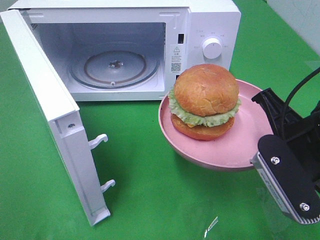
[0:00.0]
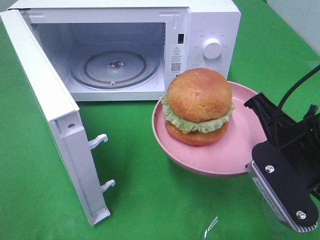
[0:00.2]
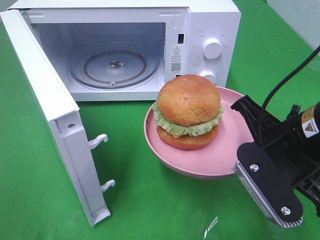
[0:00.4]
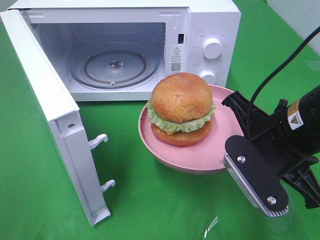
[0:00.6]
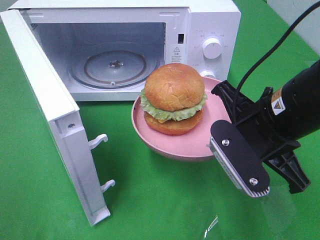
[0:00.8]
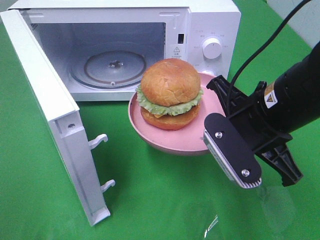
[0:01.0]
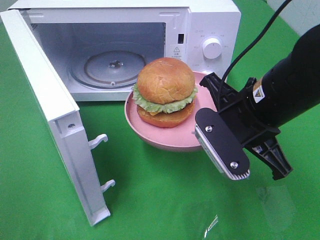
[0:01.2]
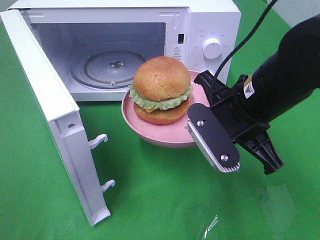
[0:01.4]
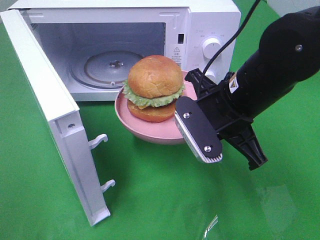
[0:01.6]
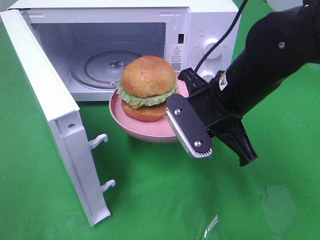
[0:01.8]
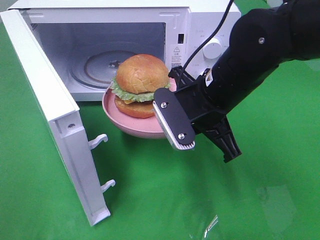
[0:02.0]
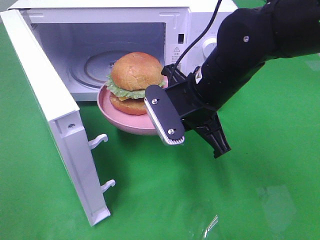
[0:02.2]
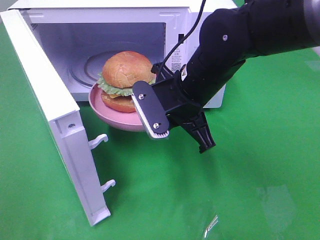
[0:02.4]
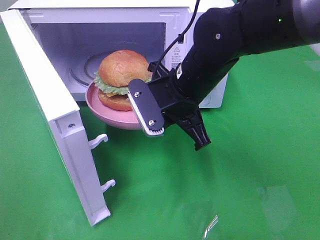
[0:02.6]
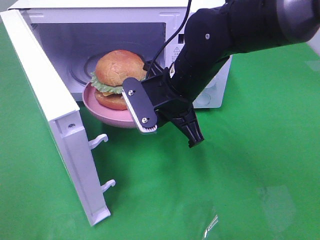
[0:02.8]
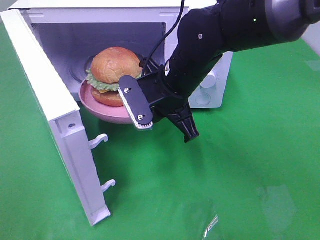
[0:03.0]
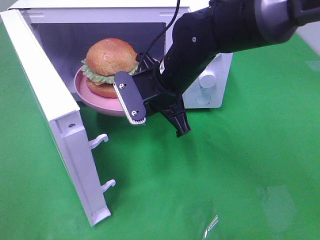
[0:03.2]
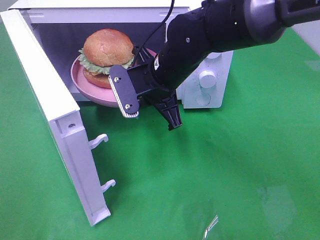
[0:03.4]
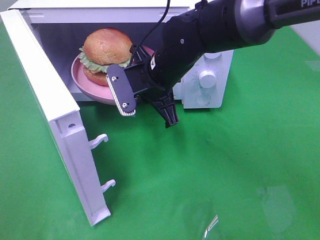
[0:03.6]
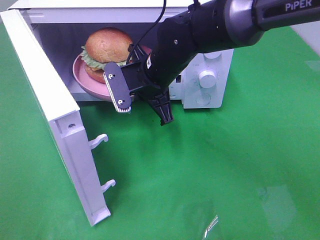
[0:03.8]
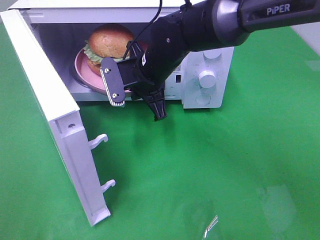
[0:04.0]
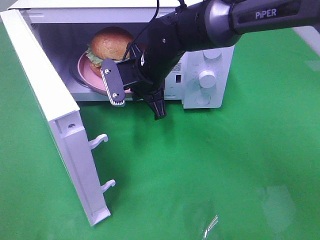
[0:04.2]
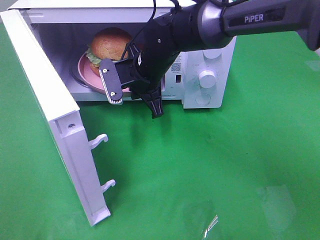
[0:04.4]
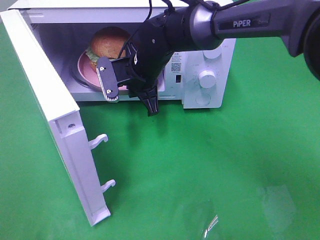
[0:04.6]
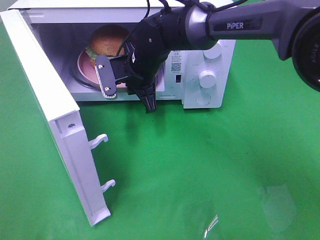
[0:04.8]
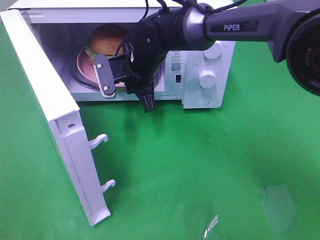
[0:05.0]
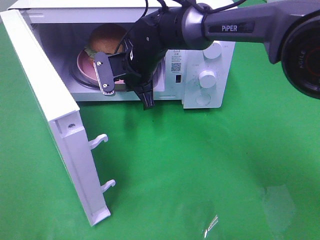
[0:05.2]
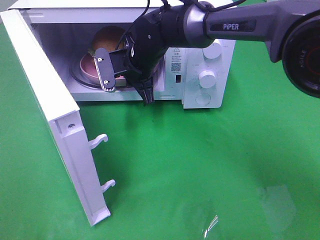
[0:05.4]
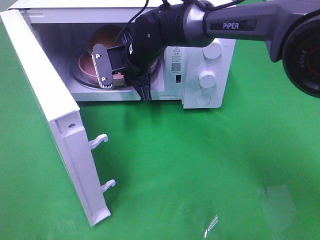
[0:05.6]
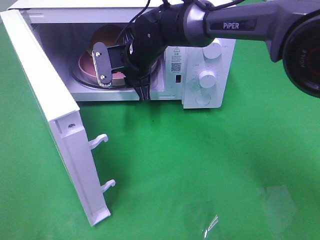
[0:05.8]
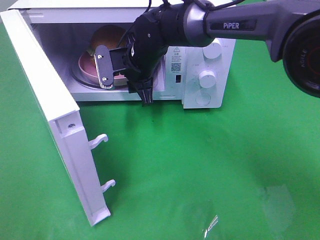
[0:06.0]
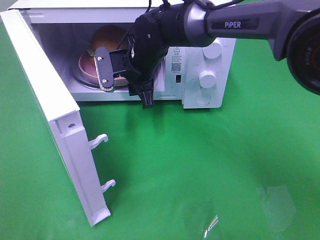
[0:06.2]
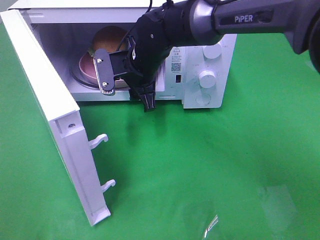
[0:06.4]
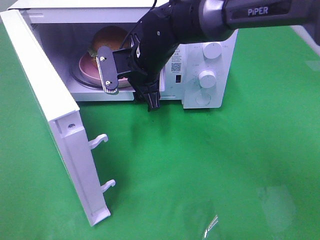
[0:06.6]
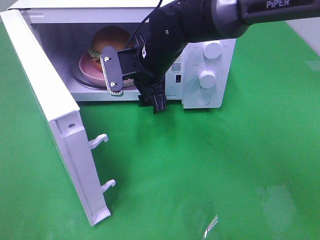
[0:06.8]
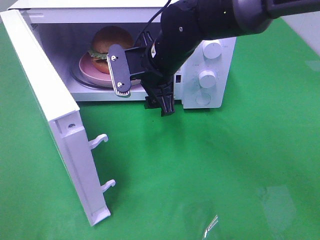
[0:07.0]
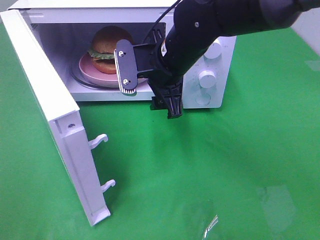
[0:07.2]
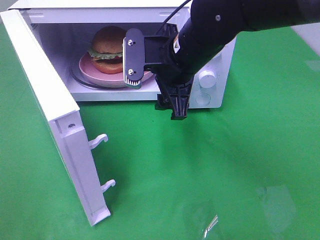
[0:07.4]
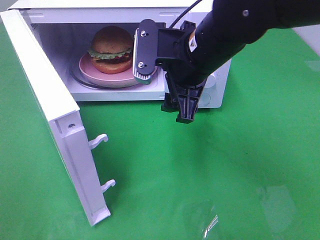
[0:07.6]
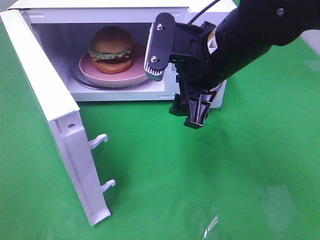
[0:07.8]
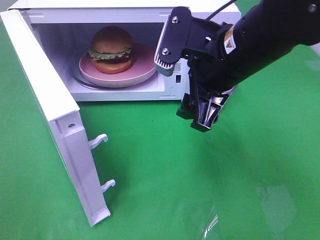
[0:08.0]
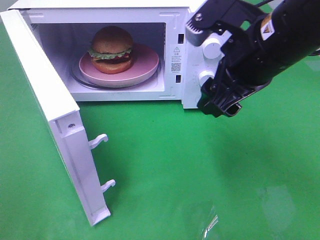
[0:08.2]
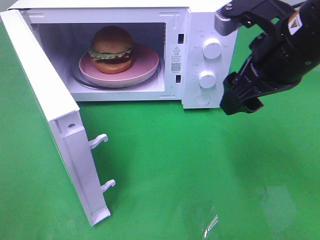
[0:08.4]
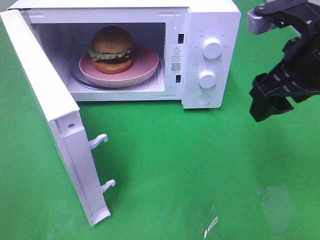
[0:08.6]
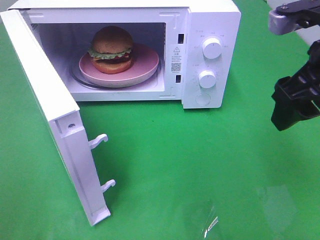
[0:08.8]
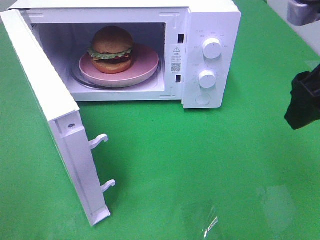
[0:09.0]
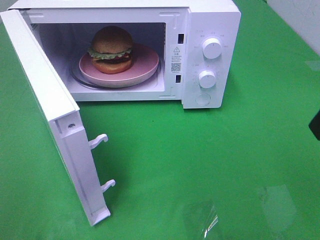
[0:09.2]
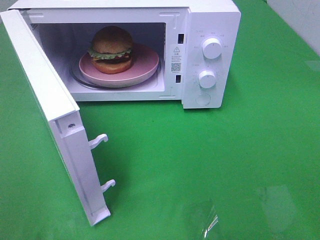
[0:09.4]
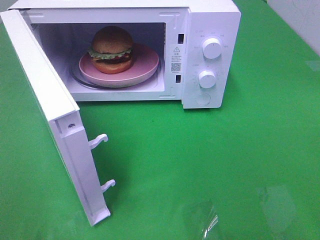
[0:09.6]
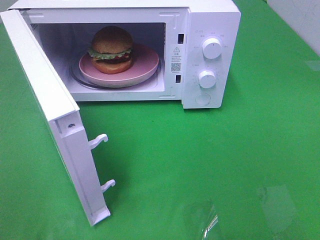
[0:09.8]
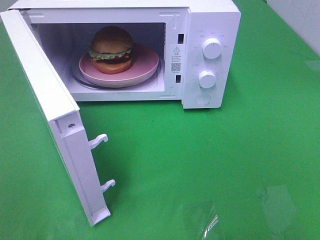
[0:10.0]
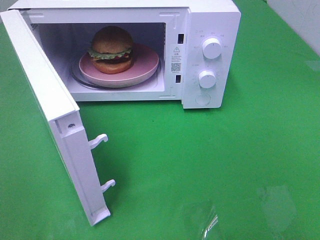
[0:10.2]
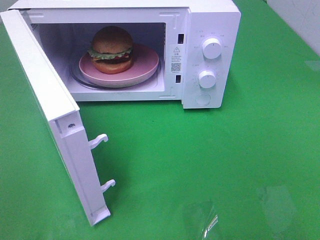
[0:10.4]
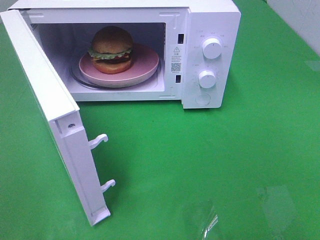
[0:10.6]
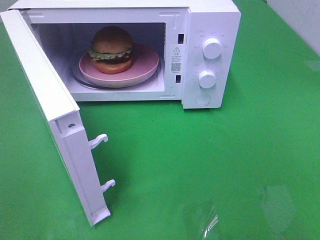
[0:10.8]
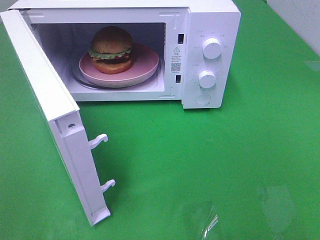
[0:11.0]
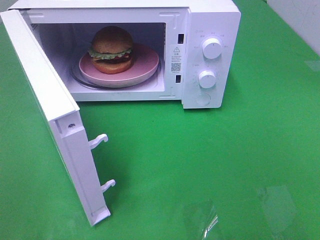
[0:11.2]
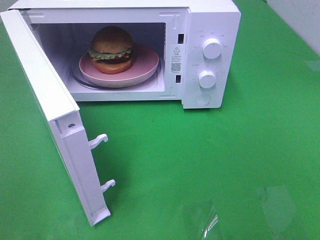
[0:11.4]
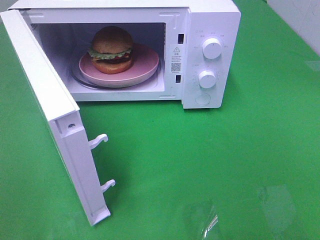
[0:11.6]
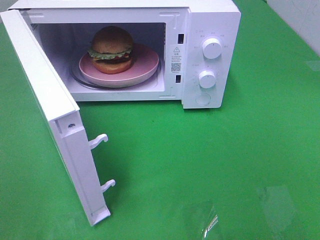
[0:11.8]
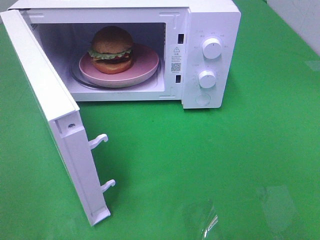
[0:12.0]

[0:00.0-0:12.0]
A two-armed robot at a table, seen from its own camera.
Task of the whole recording: Heat the burger.
Step, 0:00.0 to 0:05.8: Right hand: place the plate in the microwave.
0:00.0 to 0:01.6: The right gripper shifts roughly 10 cm to the left and forward.
0:01.6 to 0:03.0: The right gripper shifts some 10 cm to the left and forward.
0:03.0 to 0:04.4: The right gripper is displaced forward by approximately 10 cm.
0:04.4 to 0:06.0: The right gripper opens up.
0:06.0 to 0:07.6: The right gripper heads backward, to the right and upward, covering some 20 cm, and opens up.
0:07.6 to 0:09.0: The right gripper goes approximately 20 cm to the right, backward and upward.
0:09.0 to 0:10.4: The right gripper travels backward and to the right by about 20 cm.

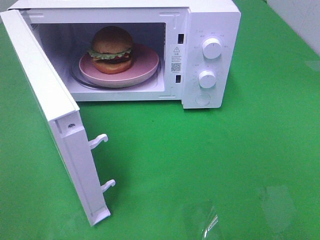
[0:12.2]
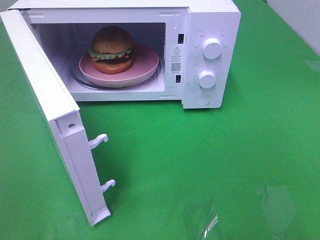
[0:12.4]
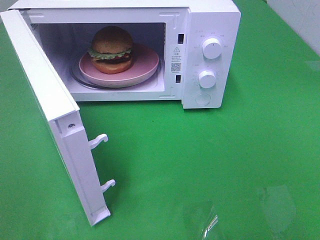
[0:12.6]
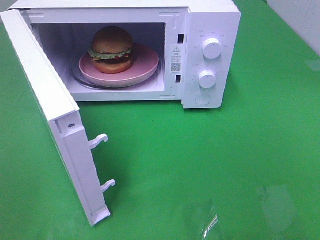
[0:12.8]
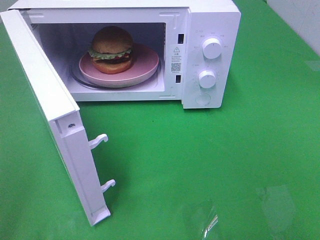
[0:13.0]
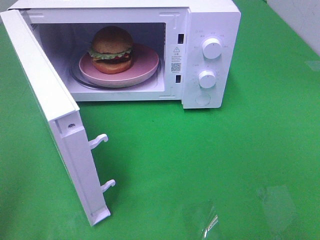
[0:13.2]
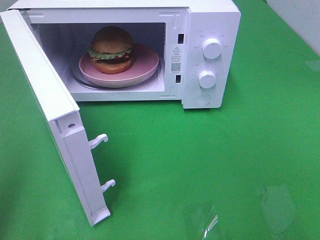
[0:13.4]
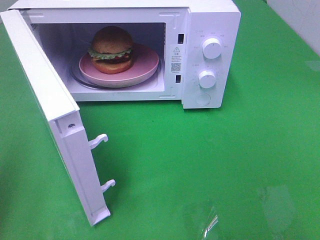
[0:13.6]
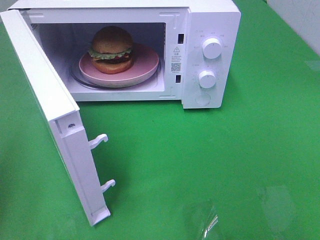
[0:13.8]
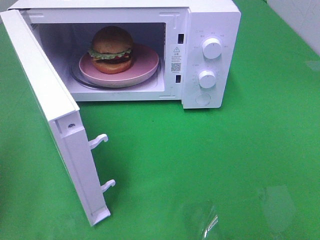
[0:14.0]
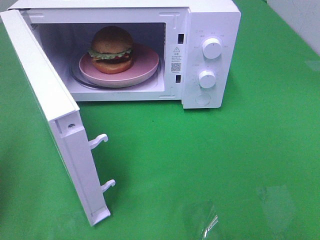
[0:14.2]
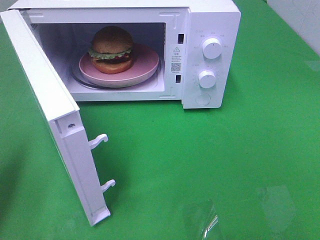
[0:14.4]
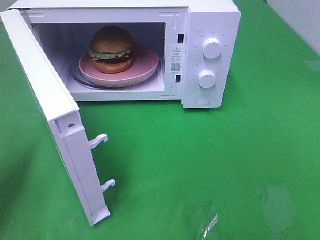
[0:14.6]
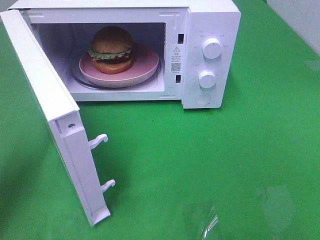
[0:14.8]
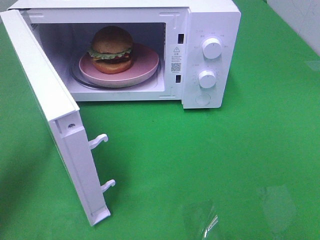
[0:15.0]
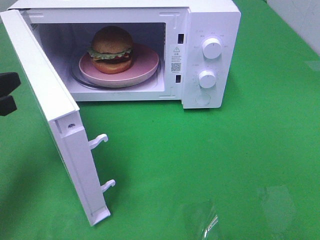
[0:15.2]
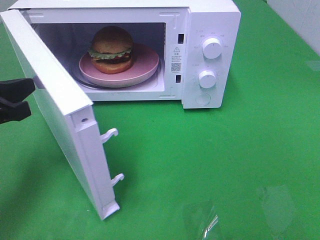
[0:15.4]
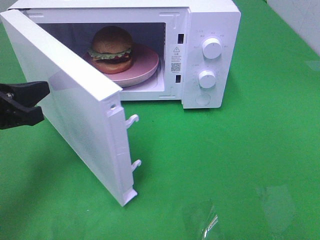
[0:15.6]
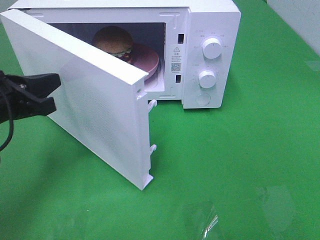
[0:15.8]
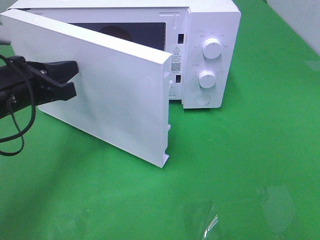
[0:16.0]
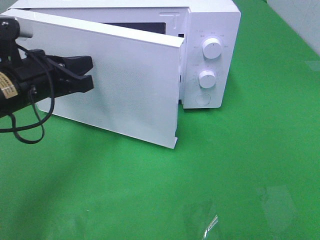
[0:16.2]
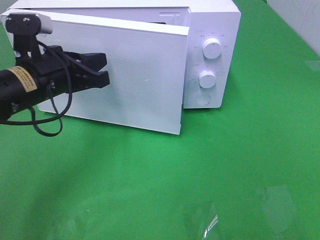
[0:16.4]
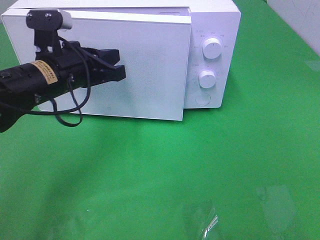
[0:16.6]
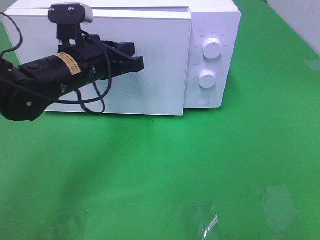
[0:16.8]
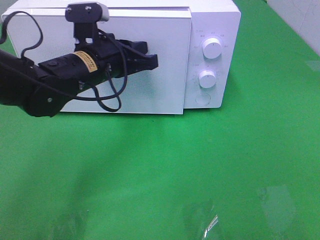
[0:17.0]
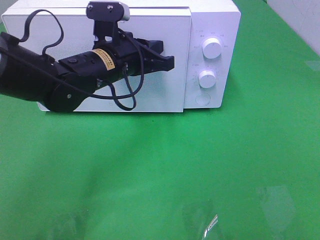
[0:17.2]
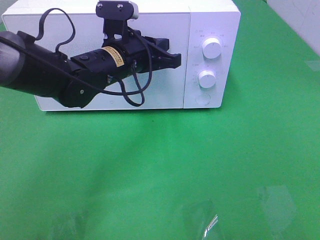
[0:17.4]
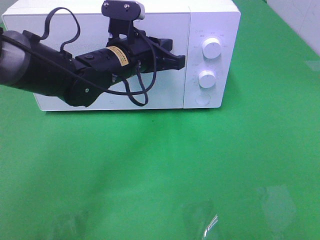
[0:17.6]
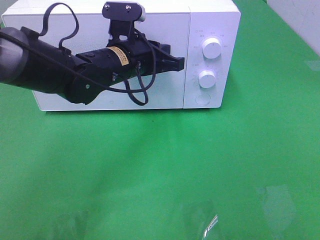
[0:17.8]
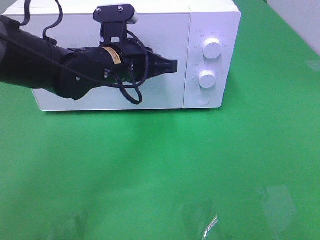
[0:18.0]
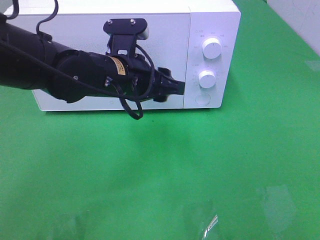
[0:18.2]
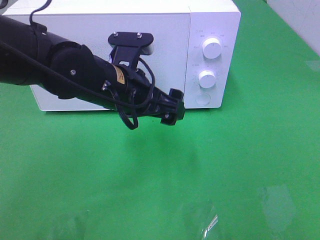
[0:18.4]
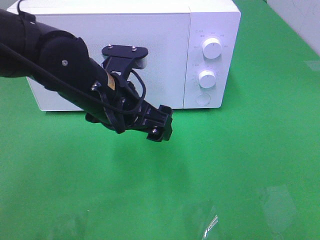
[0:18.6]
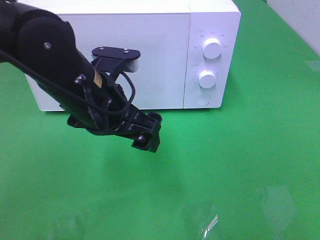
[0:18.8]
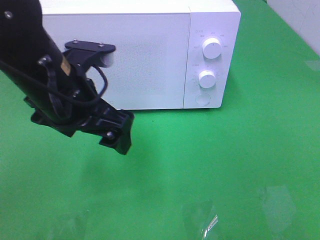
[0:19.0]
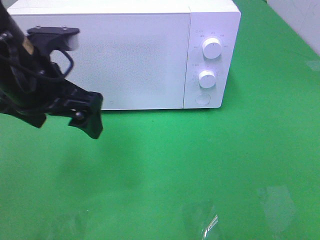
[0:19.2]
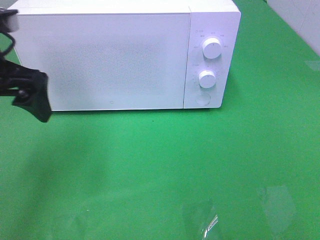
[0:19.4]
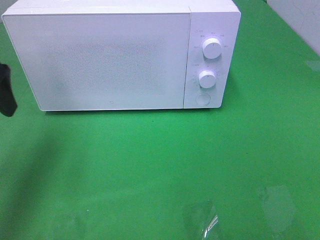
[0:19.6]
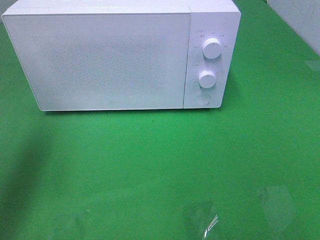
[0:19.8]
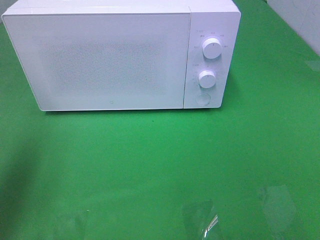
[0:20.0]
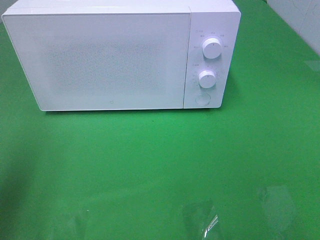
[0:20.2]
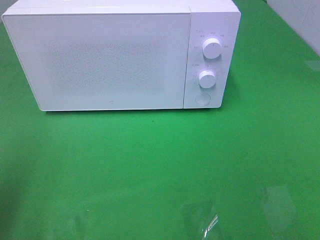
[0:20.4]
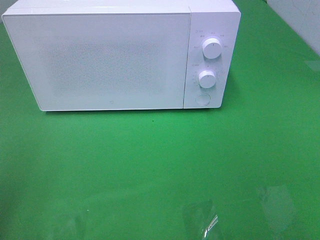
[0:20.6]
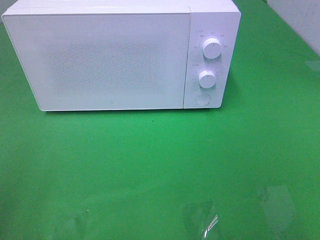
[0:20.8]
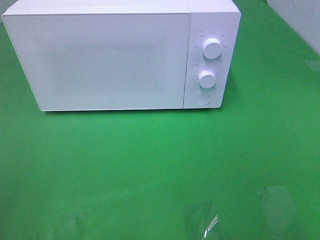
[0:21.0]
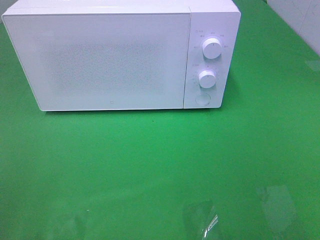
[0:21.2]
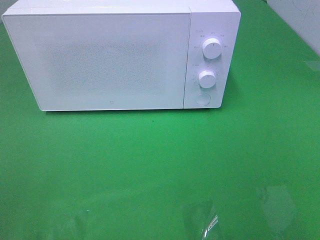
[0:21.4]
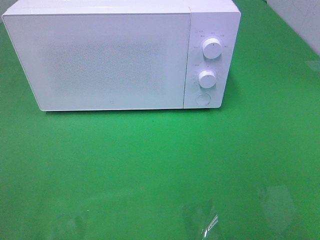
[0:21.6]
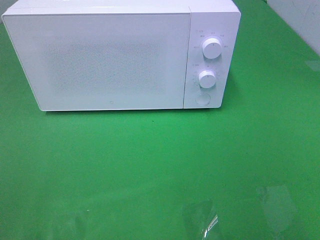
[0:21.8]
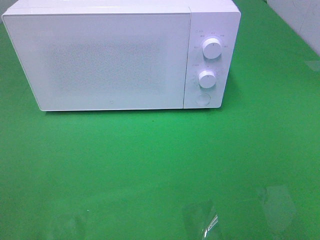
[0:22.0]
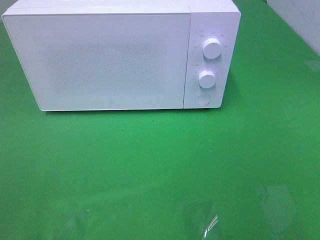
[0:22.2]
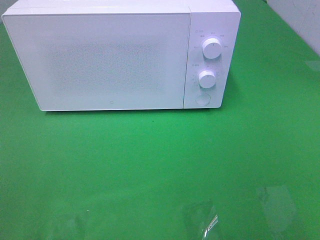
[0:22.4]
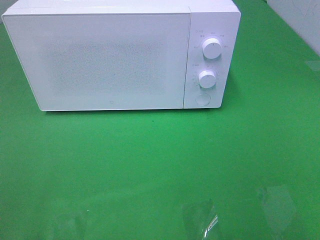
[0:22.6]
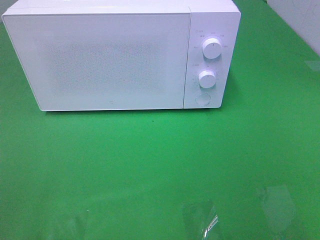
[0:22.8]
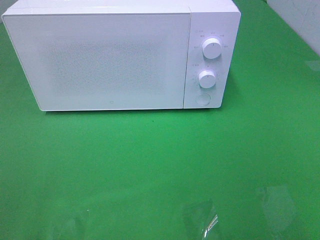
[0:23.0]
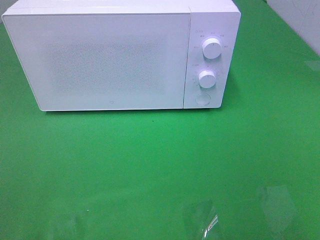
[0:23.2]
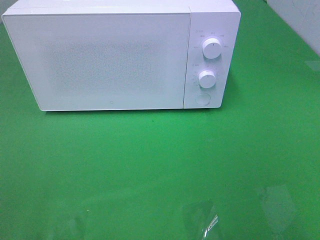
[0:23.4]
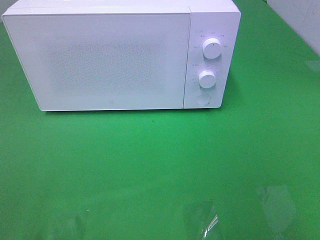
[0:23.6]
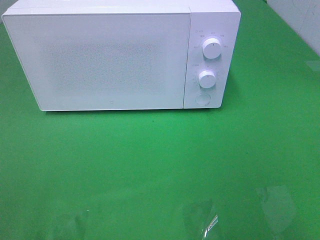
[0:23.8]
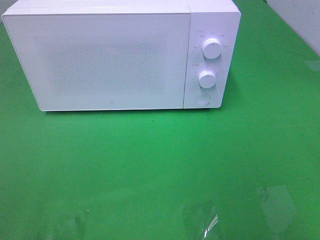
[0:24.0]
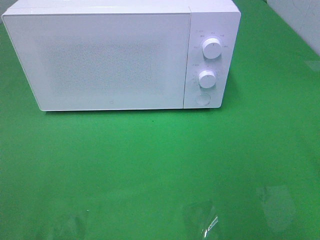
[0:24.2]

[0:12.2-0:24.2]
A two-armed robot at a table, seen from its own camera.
Task of the whole recording: Heat the burger.
Step, 0:12.2 to 0:18.2: Left hand: close the microwave door.
0:13.8 to 0:15.2: The left gripper shifts about 15 cm forward, downward and to the right.
0:15.2 to 0:16.6: The left gripper travels to the right and forward by roughly 15 cm.
0:16.6 to 0:18.2: The left gripper goes about 10 cm to the right, and opens up.
0:18.2 to 0:19.8: The left gripper travels to the left and upward by roughly 25 cm, and opens its fingers.
0:19.8 to 0:21.2: The left gripper heads backward, covering approximately 20 cm.
